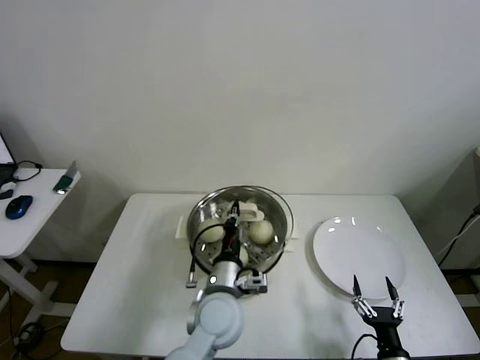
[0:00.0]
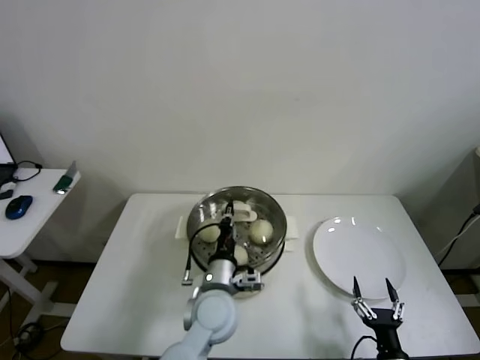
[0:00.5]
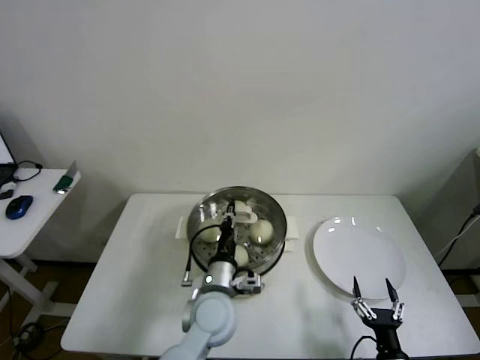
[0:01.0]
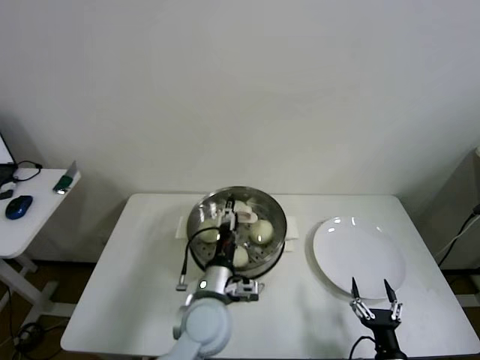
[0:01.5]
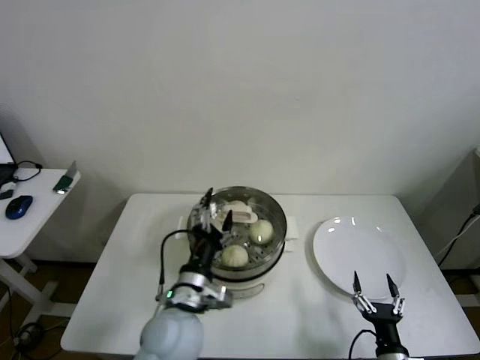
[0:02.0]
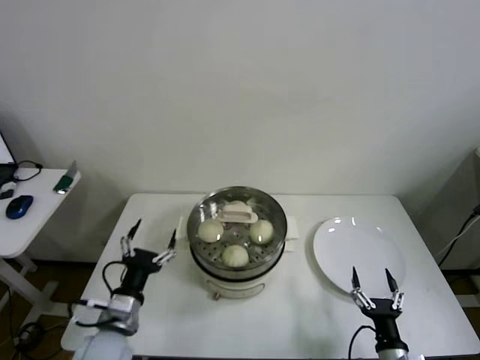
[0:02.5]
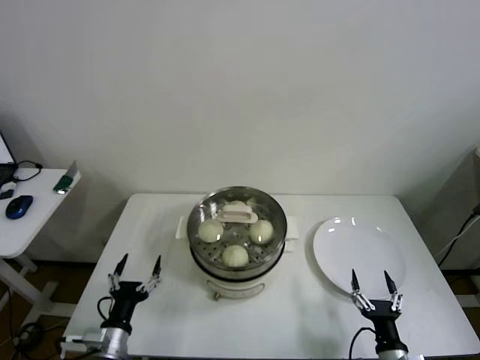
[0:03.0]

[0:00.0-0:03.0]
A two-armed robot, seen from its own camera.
0:00.0 to 0:01.5: The left gripper opens its fingers.
0:01.5 to 0:03.0: The left gripper shifts roughly 25 cm to the left and backward.
